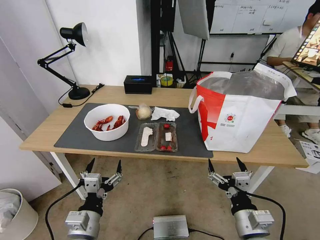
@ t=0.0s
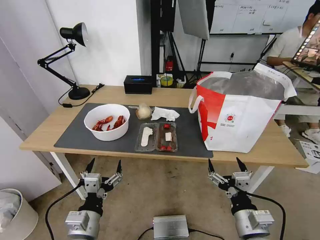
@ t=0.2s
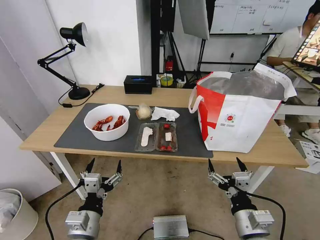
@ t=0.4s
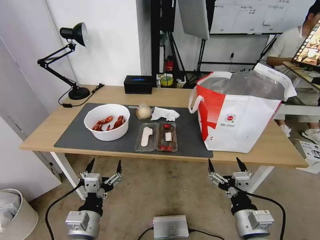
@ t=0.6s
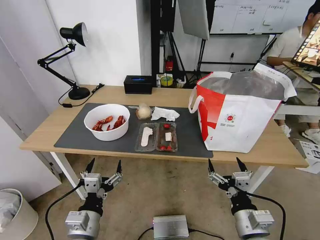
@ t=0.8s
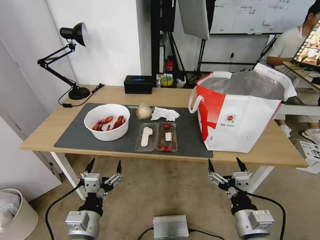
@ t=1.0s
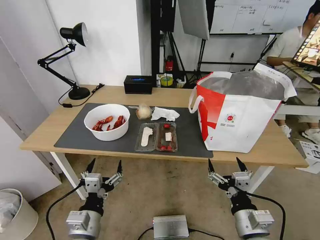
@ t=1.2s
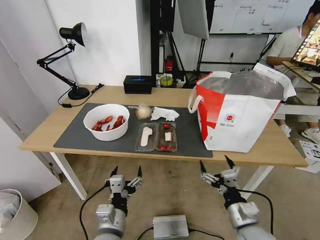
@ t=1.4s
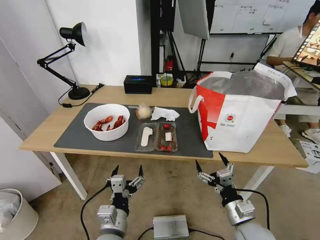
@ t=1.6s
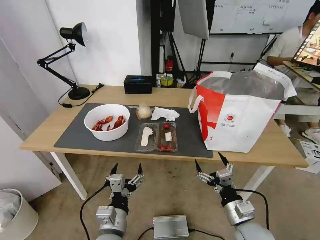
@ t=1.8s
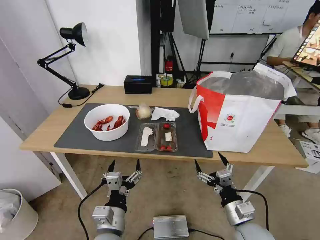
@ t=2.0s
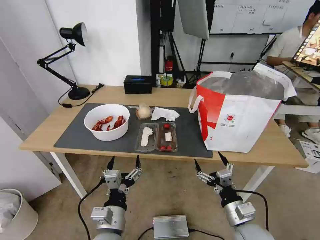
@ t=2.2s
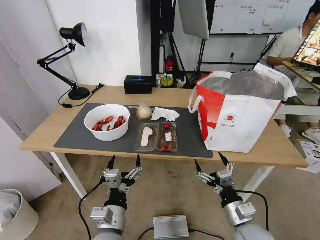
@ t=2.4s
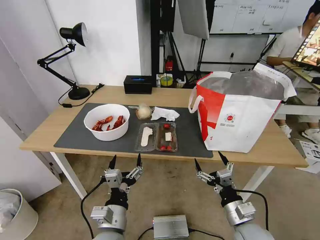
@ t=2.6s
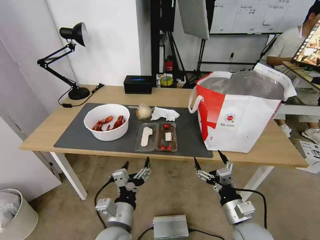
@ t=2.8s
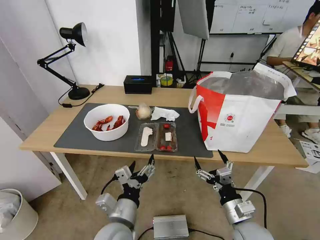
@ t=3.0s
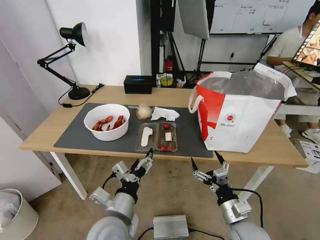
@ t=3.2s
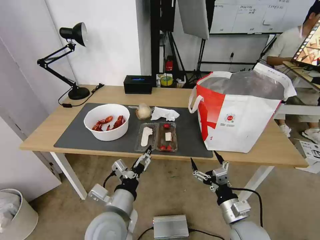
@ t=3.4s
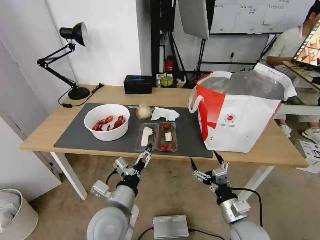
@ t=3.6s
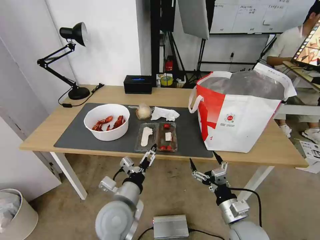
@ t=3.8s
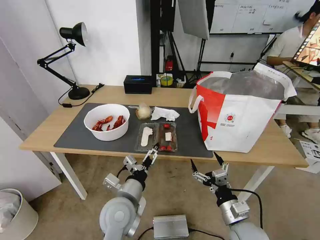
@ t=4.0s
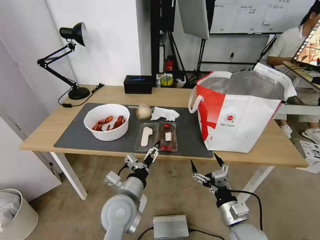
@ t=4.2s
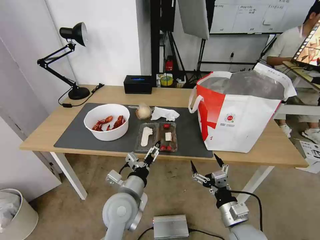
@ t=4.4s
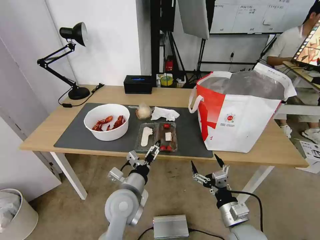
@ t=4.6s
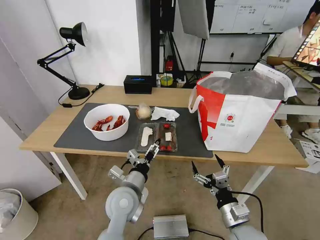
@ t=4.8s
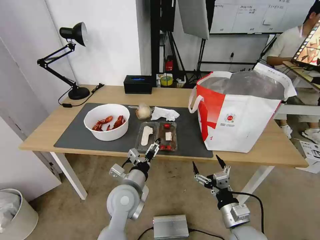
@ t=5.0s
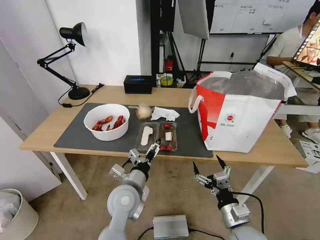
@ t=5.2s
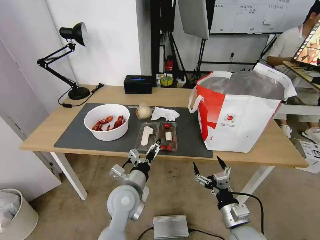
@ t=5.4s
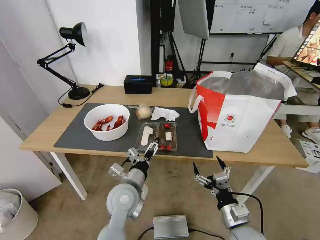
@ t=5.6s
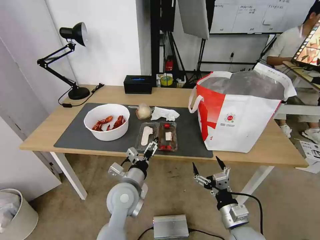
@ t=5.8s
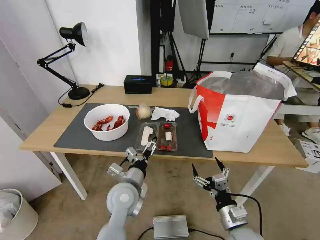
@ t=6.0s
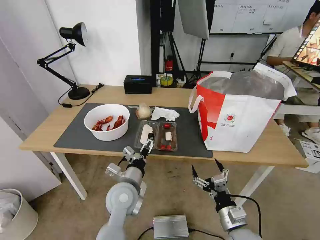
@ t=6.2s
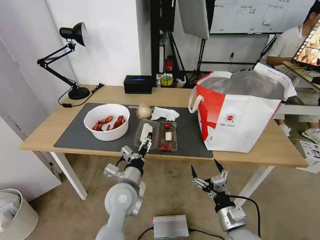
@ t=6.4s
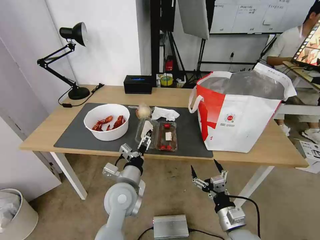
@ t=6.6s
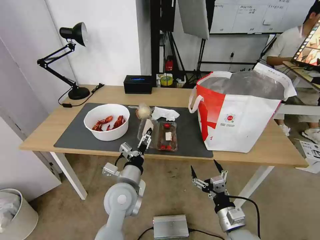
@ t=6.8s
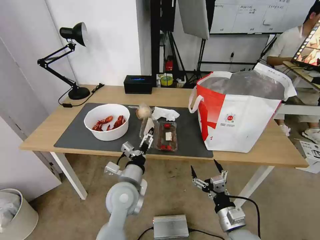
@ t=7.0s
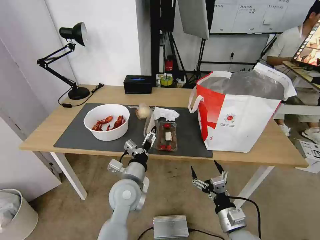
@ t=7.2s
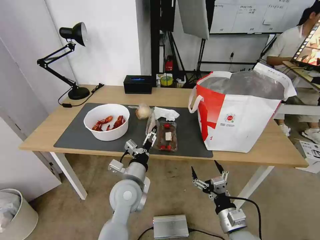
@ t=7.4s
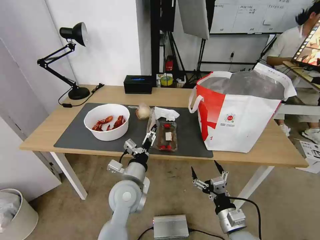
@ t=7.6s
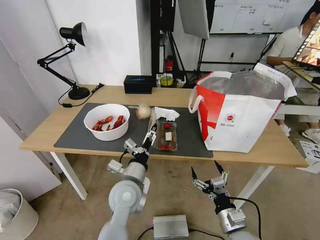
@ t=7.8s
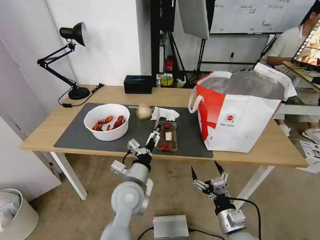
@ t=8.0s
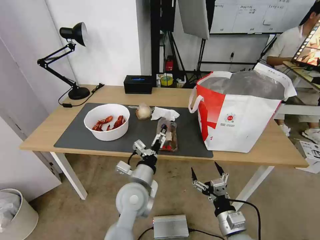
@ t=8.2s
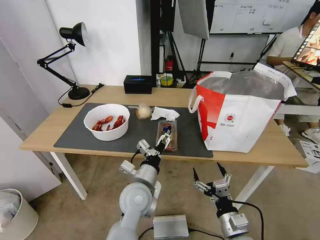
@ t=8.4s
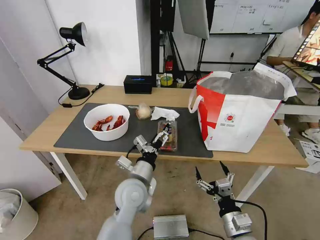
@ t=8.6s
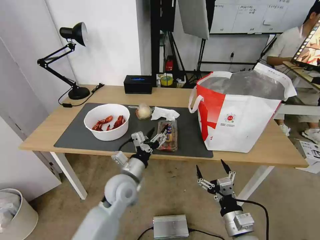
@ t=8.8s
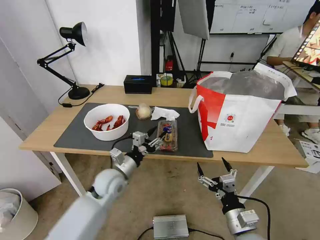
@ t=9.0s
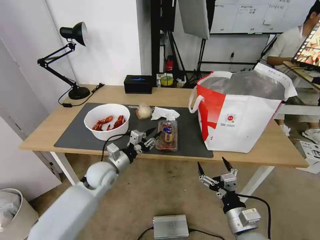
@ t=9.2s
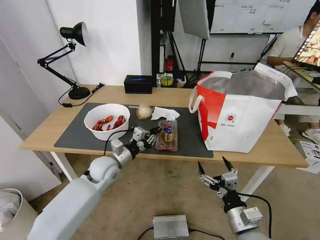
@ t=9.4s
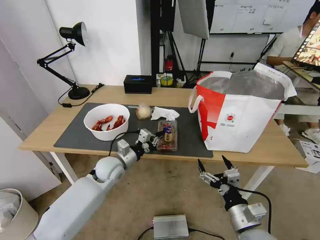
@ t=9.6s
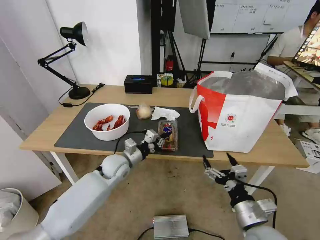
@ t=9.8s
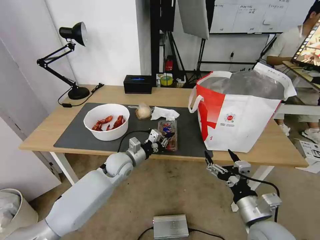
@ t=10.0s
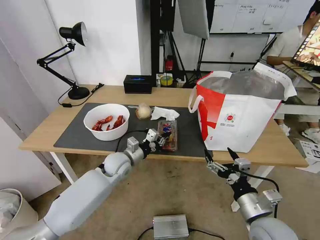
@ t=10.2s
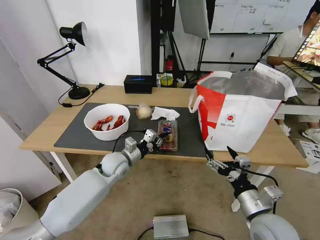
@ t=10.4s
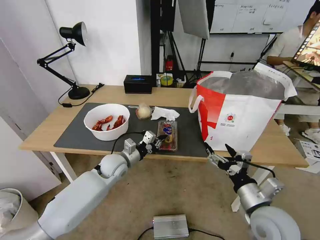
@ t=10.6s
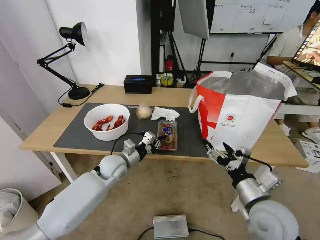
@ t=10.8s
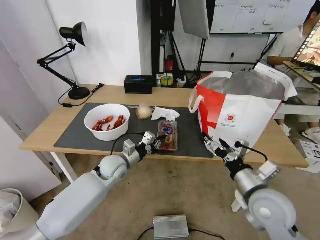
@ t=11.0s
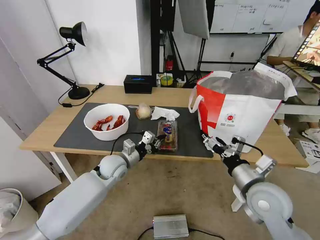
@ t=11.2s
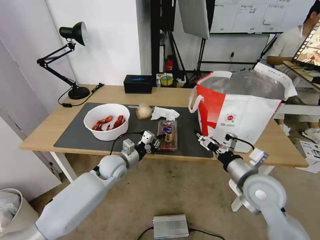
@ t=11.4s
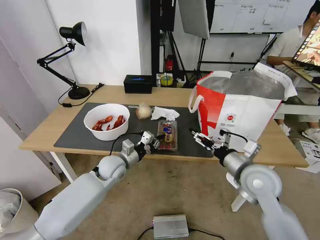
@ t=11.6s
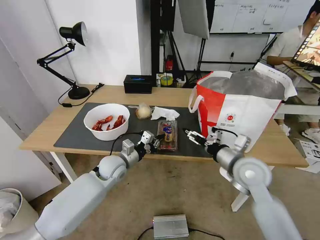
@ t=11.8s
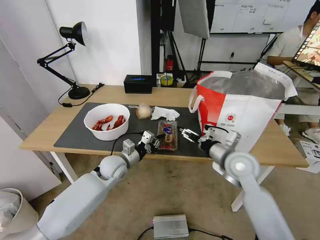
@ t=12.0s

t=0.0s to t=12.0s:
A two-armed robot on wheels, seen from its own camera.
Task of the whole recording: Pick up the trash from the table and place it into the takeout bag.
t=3.0s to t=4.4s: The left gripper travels forward by about 5 cm.
t=4.4s to t=7.6s: The grippers make only small movements.
t=7.6s to t=9.0s: The left gripper goes some 10 cm to the left and forward, and closes.
t=9.0s to t=10.4s: The left gripper shifts roughly 5 cm forward, and closes, while the right gripper goes some 5 cm upward.
t=10.4s to t=12.0s: The right gripper goes about 15 cm forward.

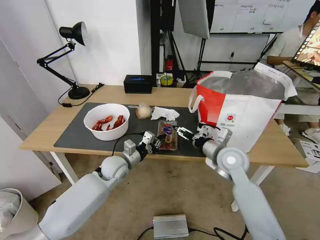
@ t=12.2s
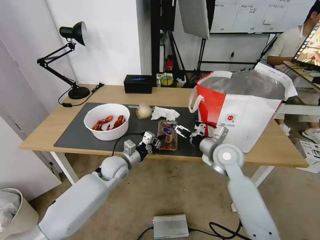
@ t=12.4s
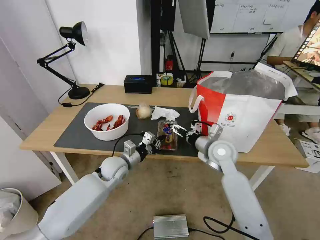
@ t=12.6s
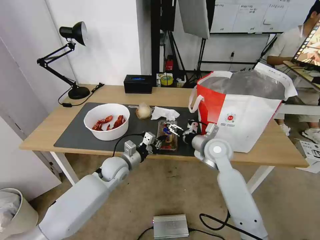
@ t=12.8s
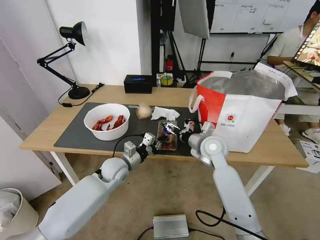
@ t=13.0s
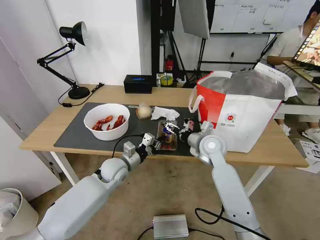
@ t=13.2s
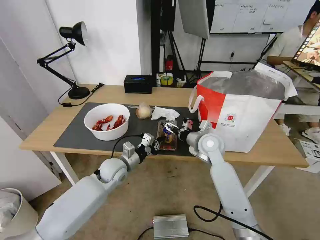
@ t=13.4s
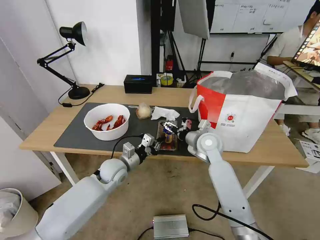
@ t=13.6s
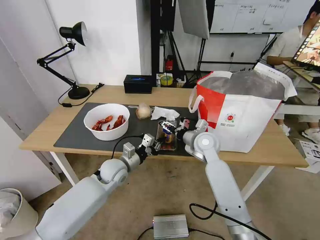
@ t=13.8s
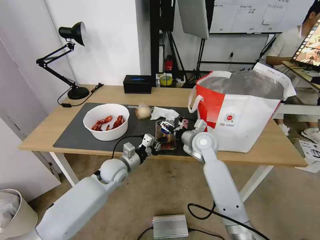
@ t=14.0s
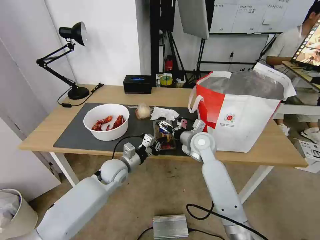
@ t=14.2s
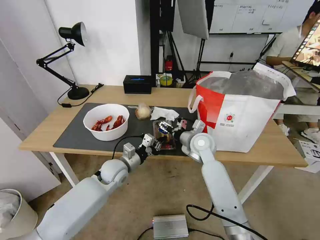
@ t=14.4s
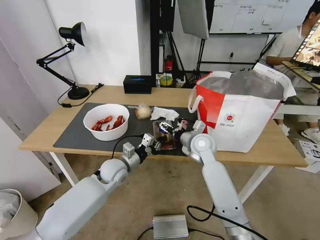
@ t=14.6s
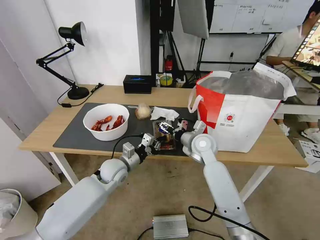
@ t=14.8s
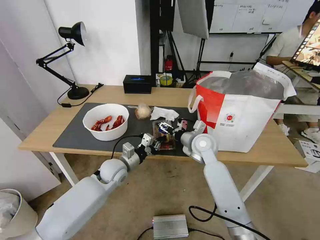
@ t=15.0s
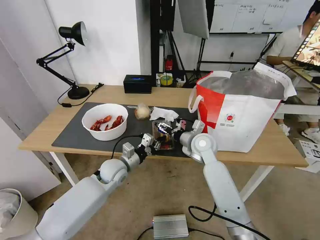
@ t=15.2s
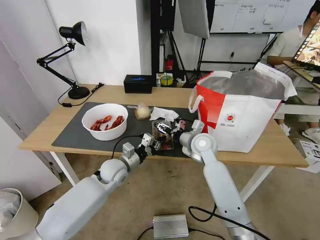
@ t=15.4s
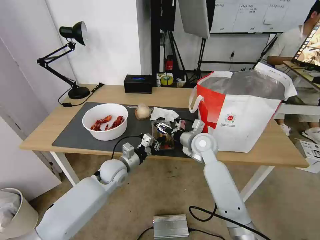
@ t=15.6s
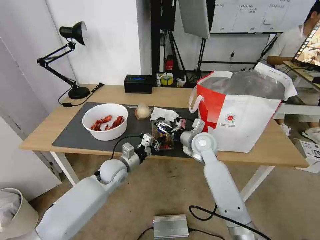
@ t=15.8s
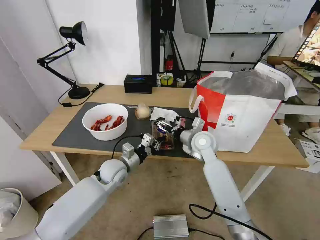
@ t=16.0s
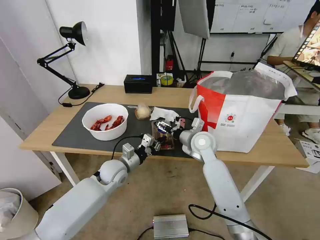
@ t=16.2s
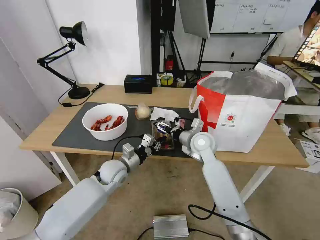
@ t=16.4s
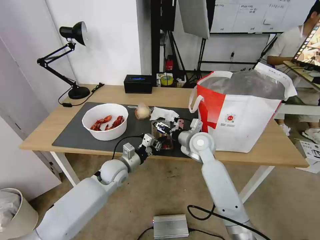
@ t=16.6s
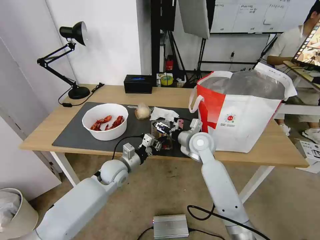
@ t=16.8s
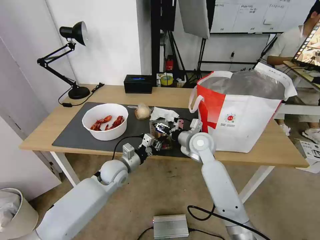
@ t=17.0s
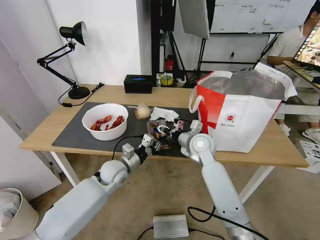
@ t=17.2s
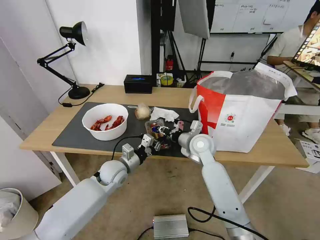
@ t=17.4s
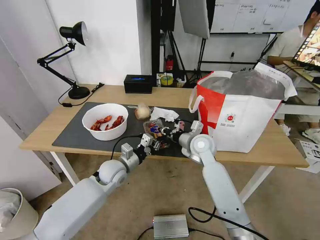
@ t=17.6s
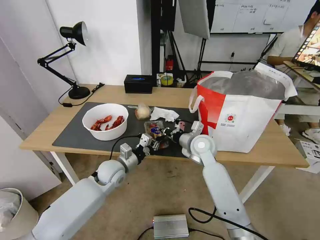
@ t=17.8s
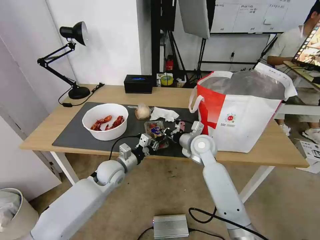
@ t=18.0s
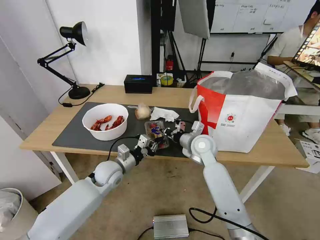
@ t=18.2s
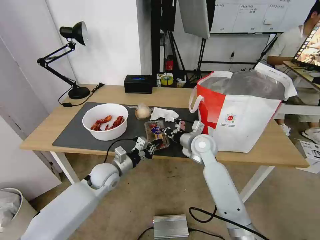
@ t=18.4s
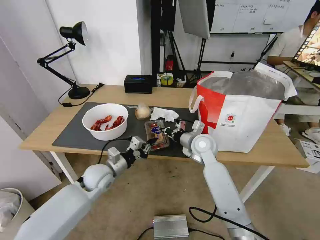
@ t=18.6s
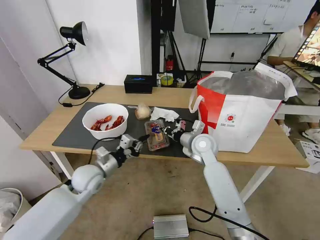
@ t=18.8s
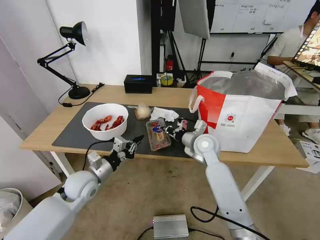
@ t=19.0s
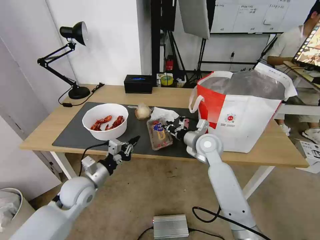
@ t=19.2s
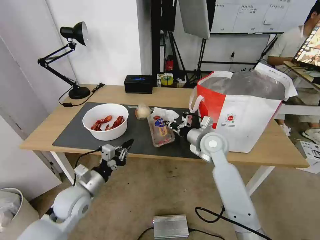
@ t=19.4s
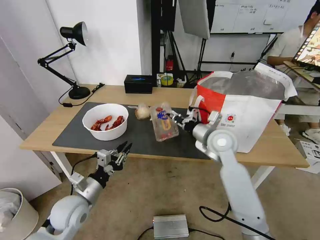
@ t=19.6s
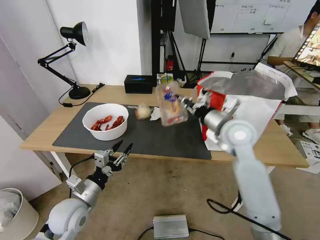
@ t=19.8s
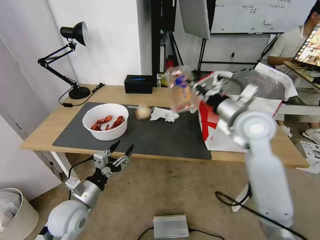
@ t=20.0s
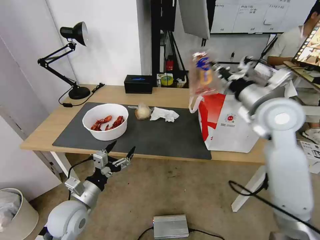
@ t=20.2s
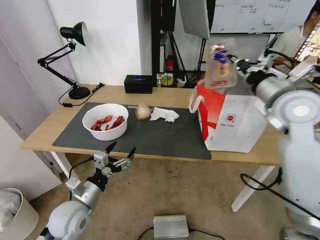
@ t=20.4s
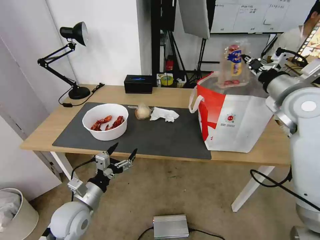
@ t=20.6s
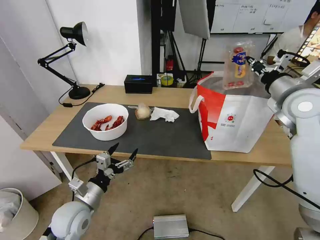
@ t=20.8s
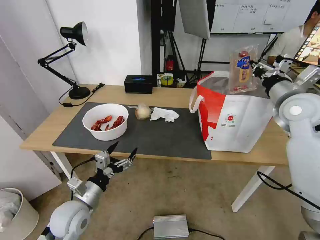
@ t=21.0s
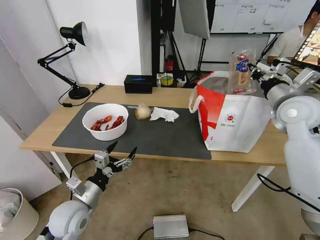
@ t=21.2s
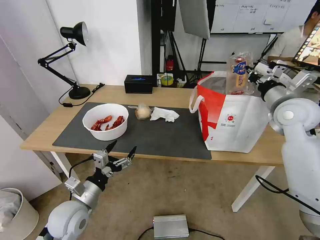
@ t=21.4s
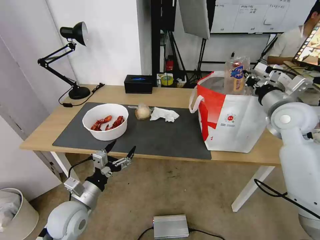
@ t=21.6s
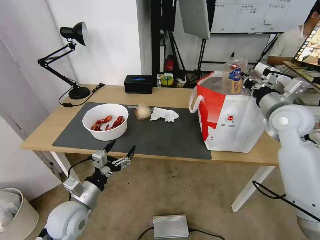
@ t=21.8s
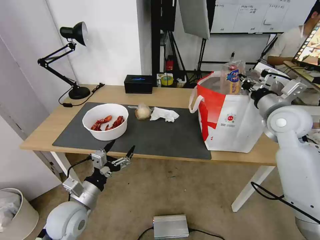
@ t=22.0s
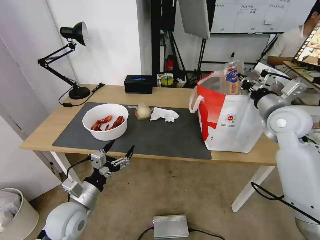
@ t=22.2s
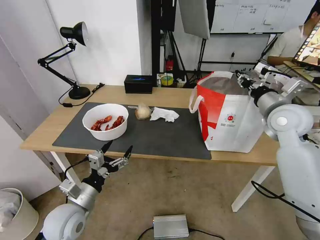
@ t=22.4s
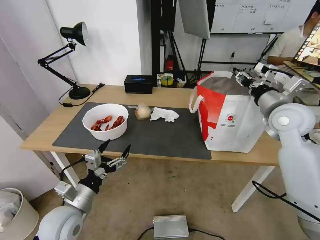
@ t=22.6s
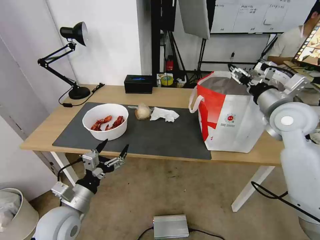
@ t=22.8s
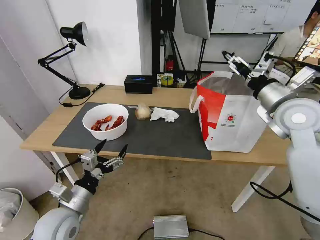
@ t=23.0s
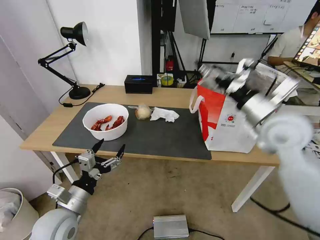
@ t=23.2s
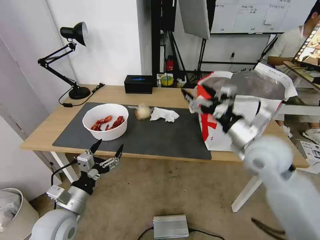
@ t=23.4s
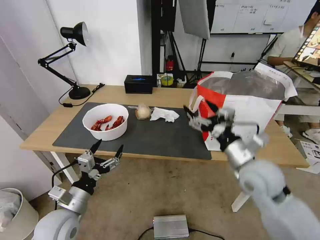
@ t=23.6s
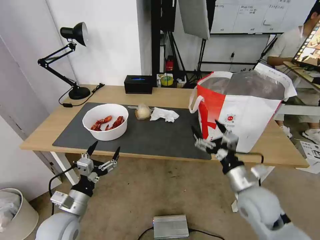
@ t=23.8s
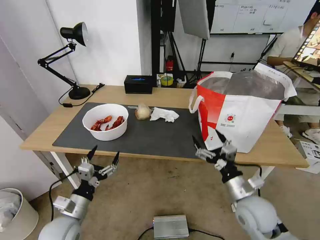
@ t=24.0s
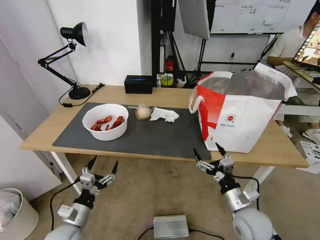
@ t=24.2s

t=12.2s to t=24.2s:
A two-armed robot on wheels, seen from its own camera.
Task of the whole recording: Pick up the trash from the table and place it into the takeout bag.
t=12.2s to t=13.8s: The right gripper moves forward and to the left, roughly 10 cm.
t=13.8s to t=15.2s: The two grippers keep their place.
t=15.2s to t=16.6s: Neither gripper changes place.
t=16.6s to t=18.2s: The right gripper closes.
t=18.2s to t=19.8s: The right gripper goes approximately 15 cm upward and to the right. Meanwhile the left gripper shifts roughly 15 cm backward and to the left, and opens up.
t=19.8s to t=21.2s: The left gripper opens. Meanwhile the right gripper goes roughly 15 cm to the right.
t=21.2s to t=22.6s: The right gripper opens its fingers.
t=22.6s to t=24.2s: The right gripper moves downward and backward, roughly 30 cm, and opens its fingers; the left gripper goes some 10 cm downward.
